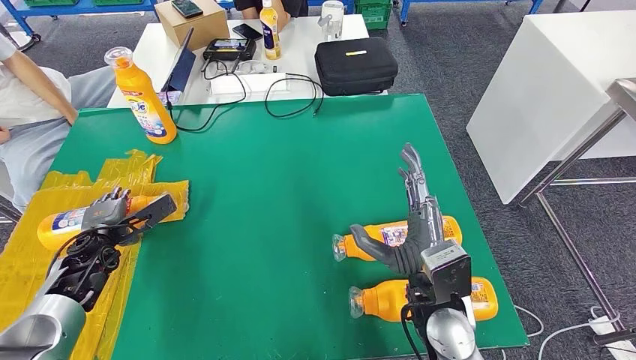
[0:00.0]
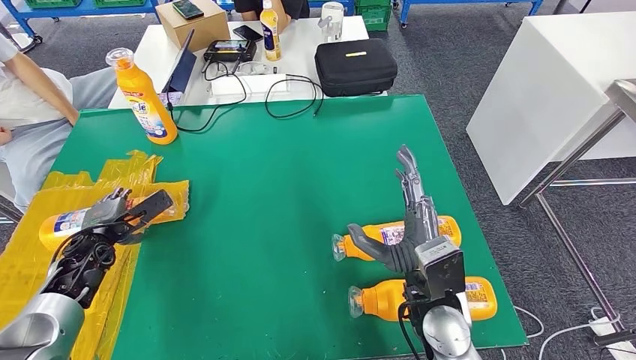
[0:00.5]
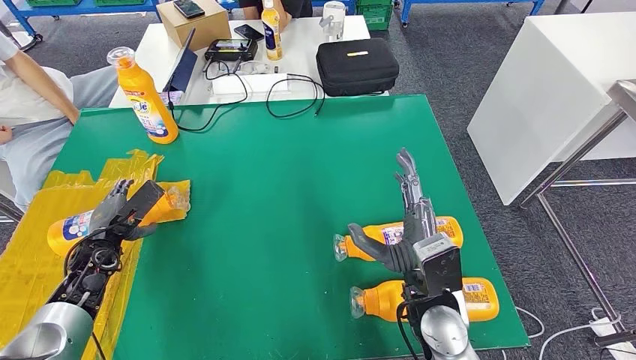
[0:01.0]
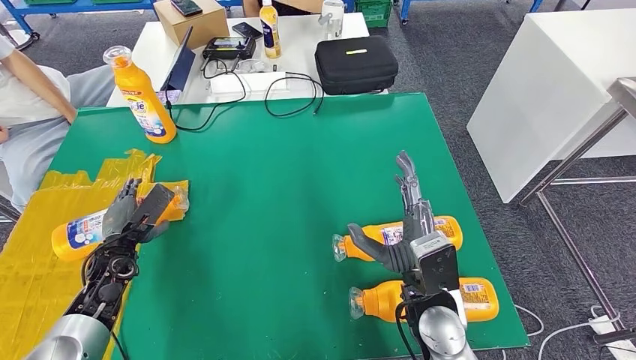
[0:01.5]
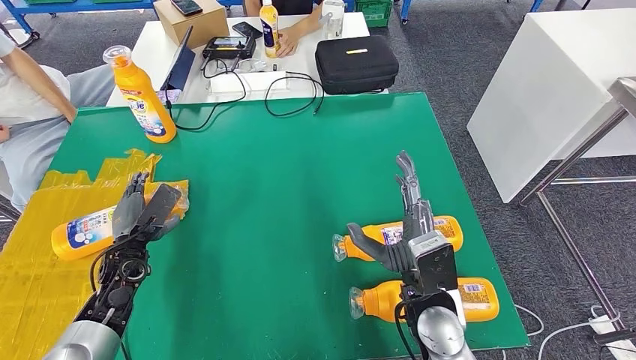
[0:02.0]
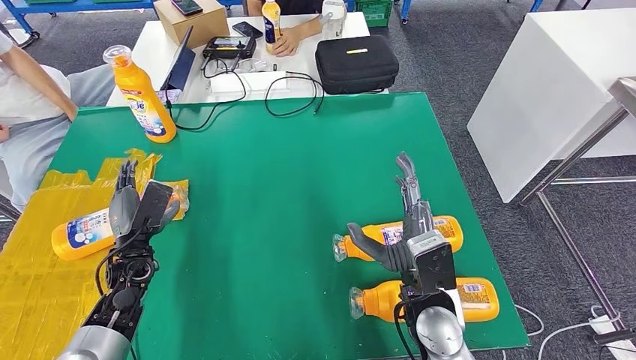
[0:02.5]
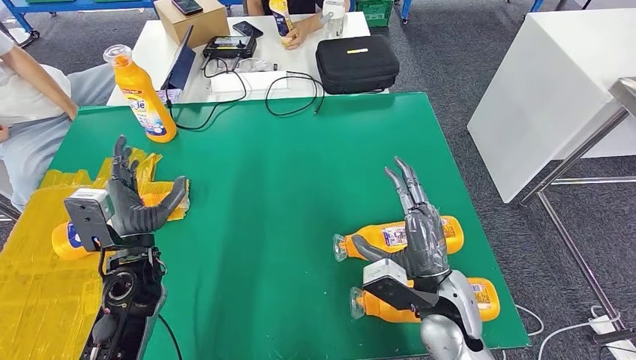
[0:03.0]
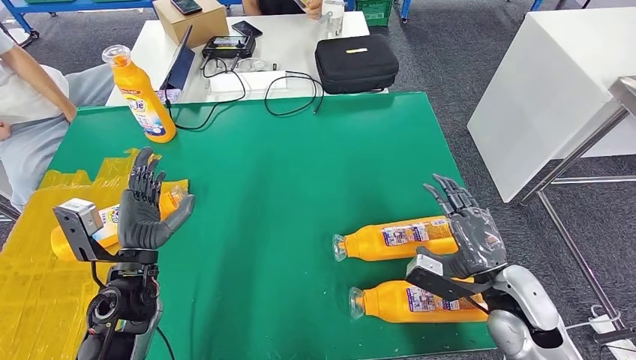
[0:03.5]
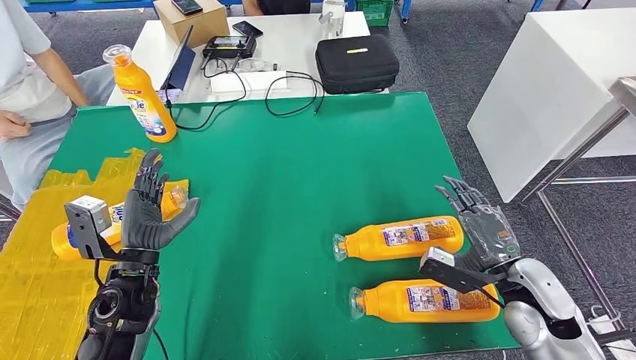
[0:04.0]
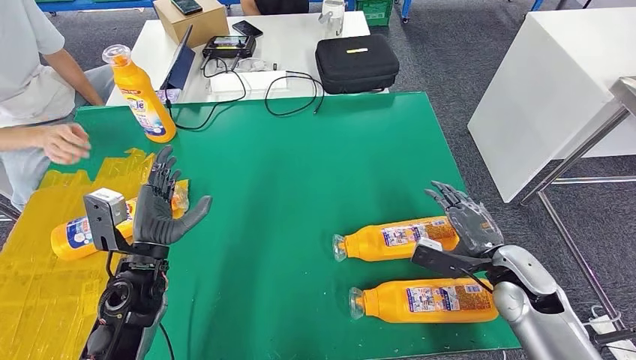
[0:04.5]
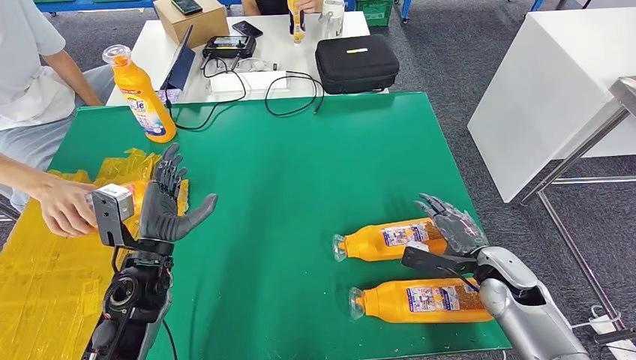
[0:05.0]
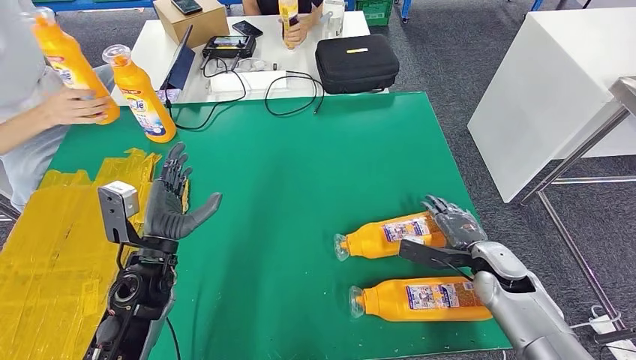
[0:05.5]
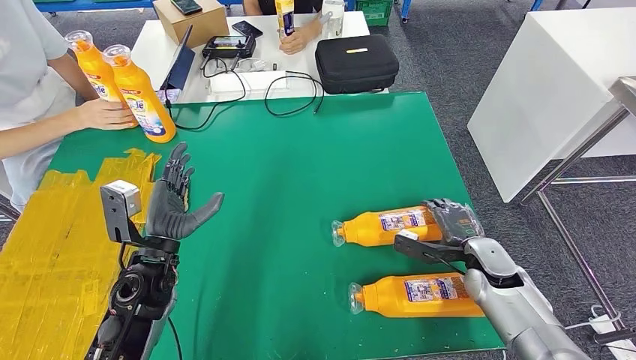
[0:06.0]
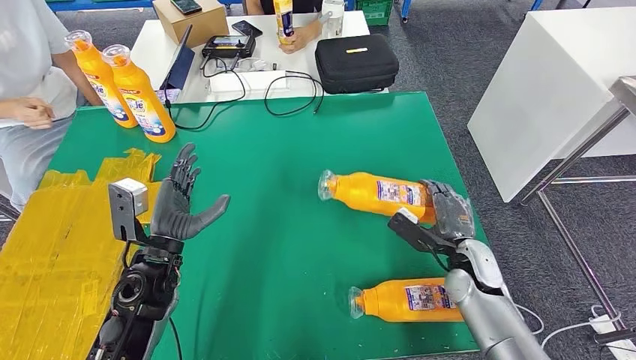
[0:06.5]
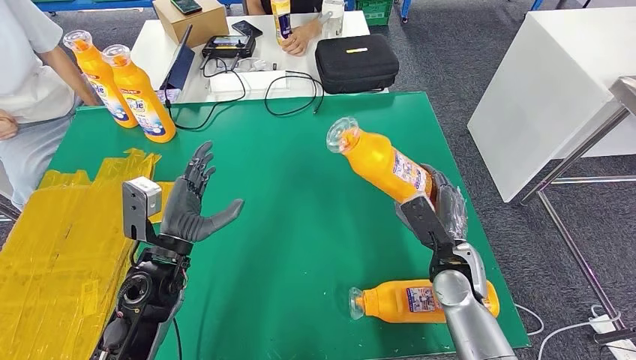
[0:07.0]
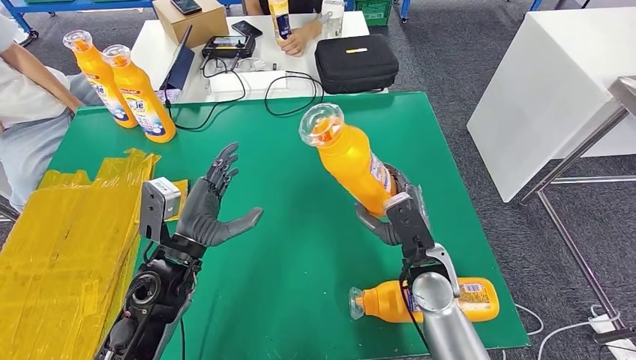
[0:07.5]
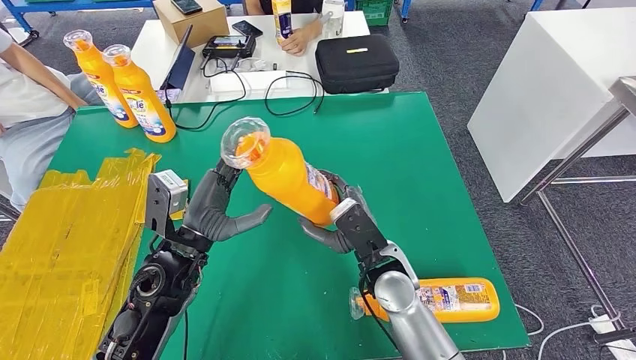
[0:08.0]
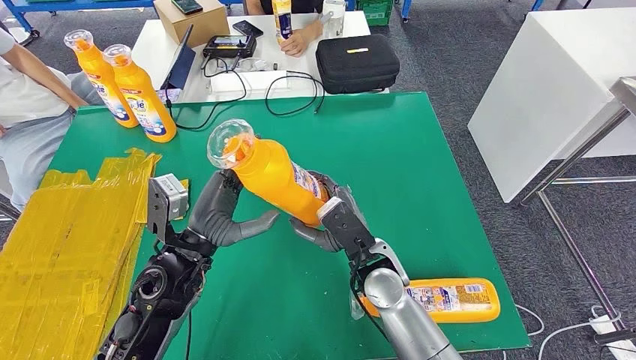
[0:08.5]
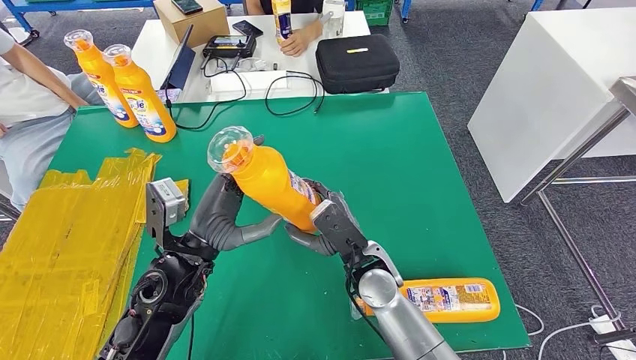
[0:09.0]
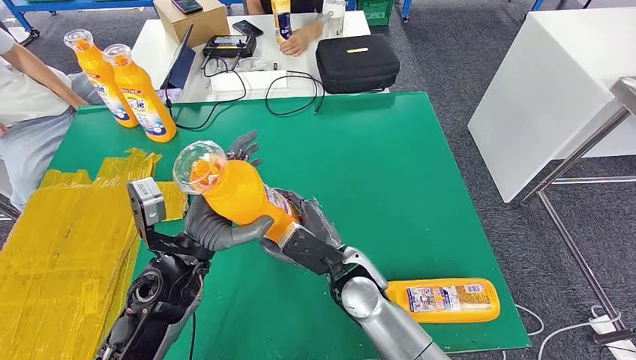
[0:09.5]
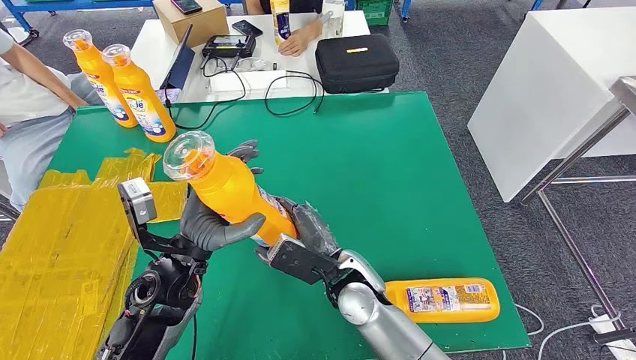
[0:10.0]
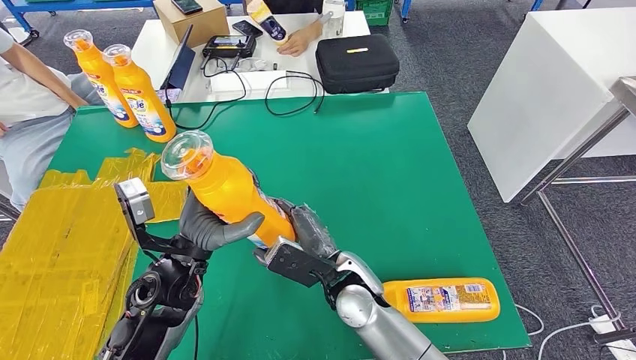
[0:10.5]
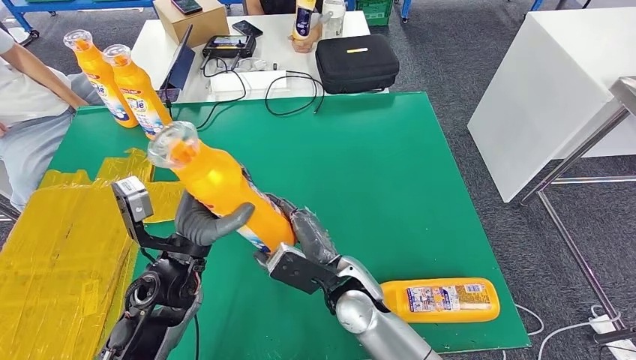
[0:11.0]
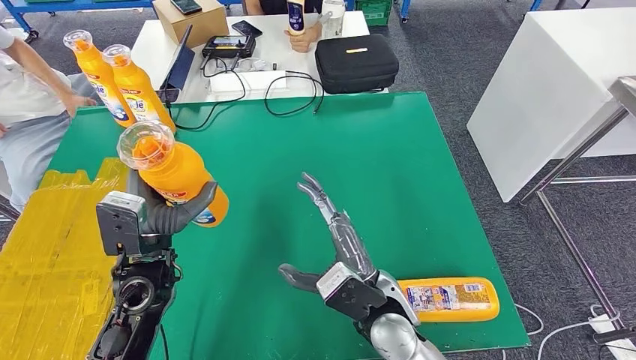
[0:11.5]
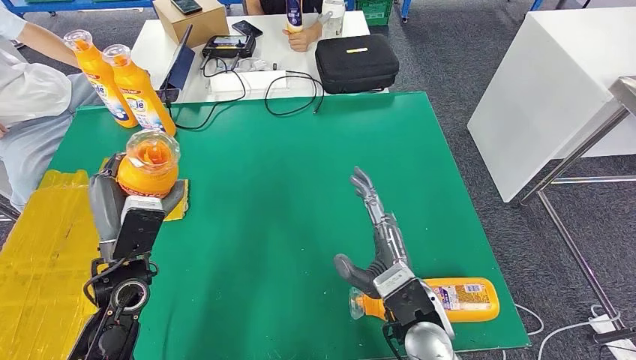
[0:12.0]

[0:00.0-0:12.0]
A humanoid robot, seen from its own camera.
Step, 0:06.5 to 0:09.0: Pick up the fast-moving consumer goods bottle from the table.
0:00.0 to 0:02.0: The left hand heads to the right, covering approximately 5 cm.
0:02.0 to 0:04.0: The left hand shifts approximately 10 cm upward and to the right, while the right hand travels to the right by about 20 cm.
0:04.0 to 0:06.0: The right hand travels downward and forward by some 10 cm.
0:08.0 to 0:10.0: The right hand moves to the left, about 5 cm.
0:10.0 to 0:12.0: The left hand moves to the left, roughly 10 cm; the right hand heads to the right and backward, covering about 10 cm.

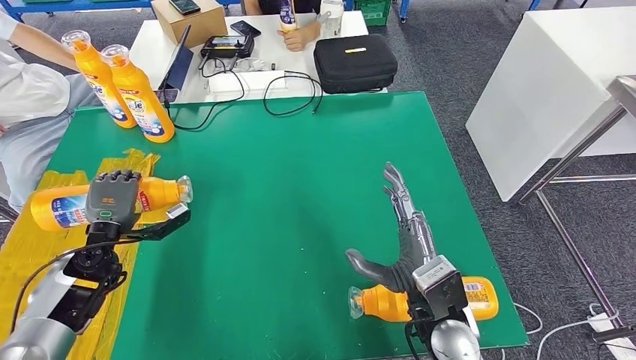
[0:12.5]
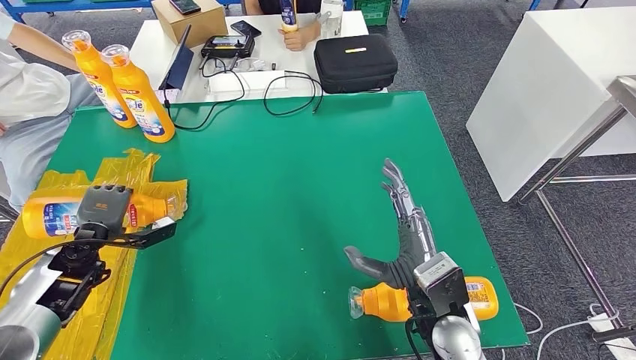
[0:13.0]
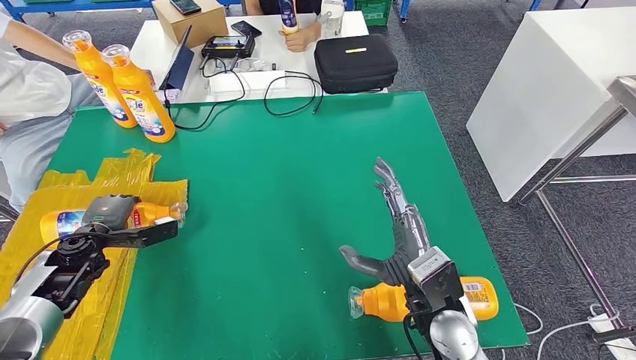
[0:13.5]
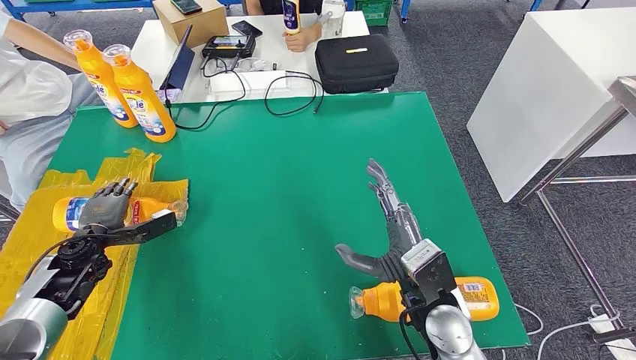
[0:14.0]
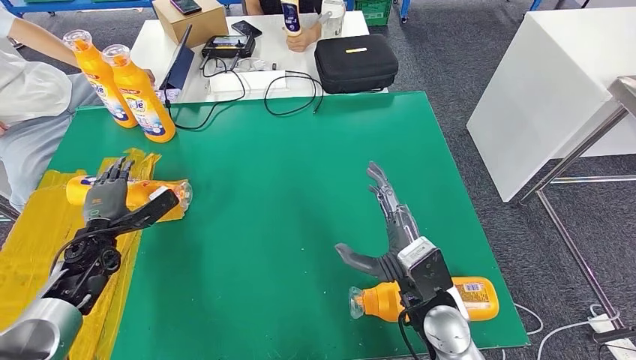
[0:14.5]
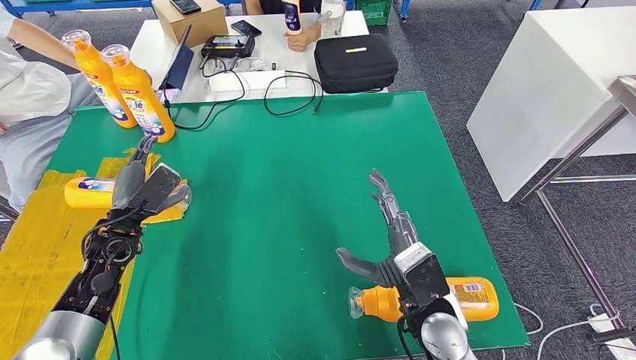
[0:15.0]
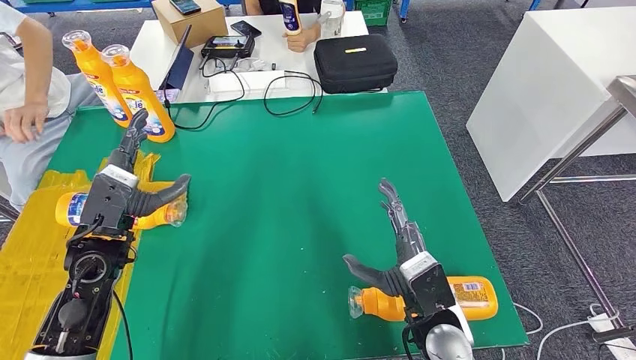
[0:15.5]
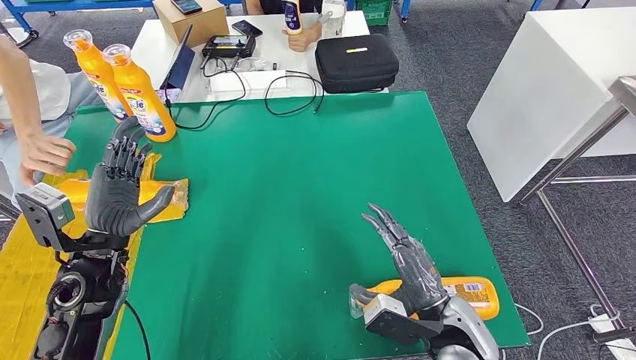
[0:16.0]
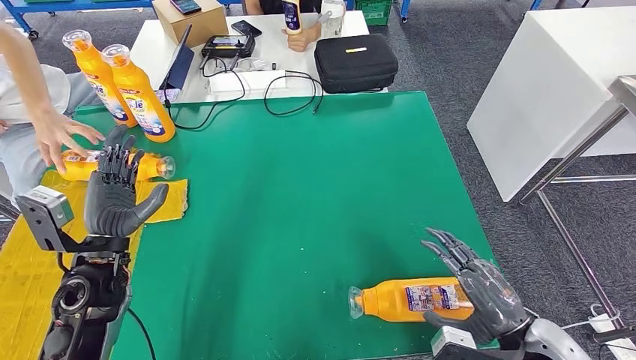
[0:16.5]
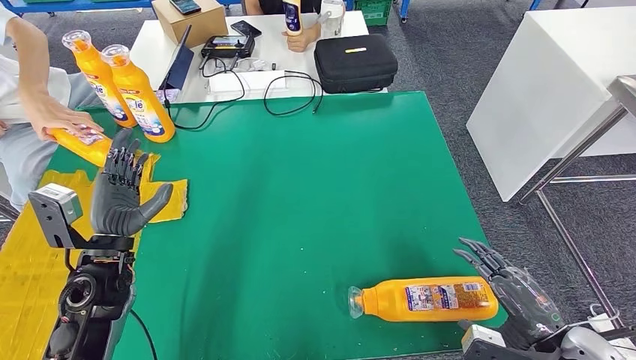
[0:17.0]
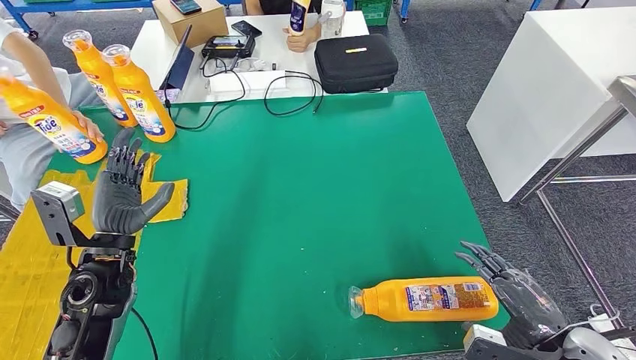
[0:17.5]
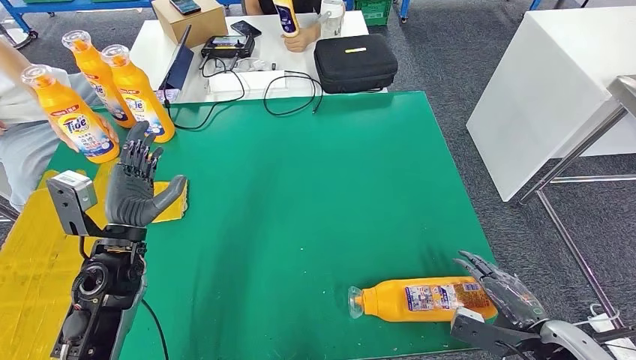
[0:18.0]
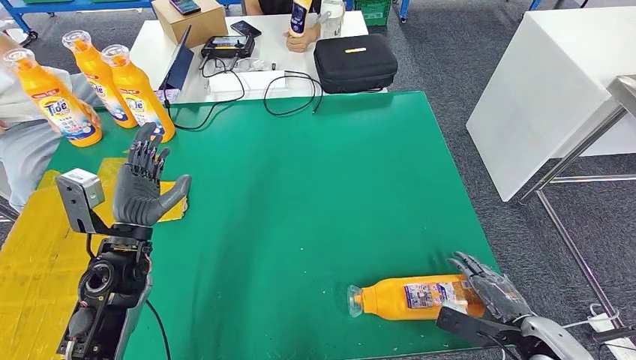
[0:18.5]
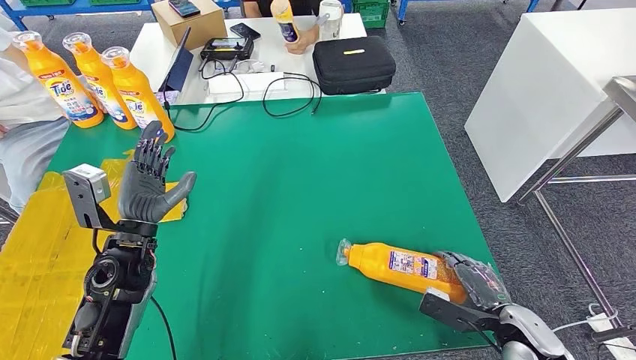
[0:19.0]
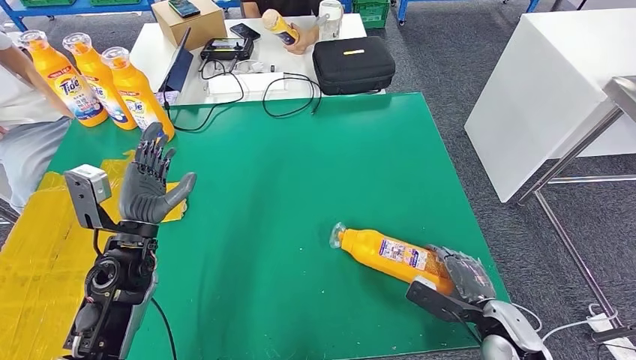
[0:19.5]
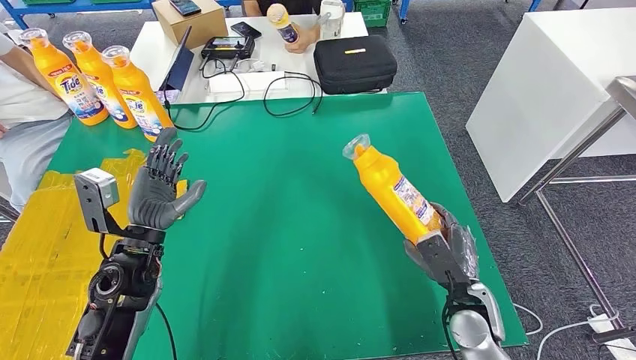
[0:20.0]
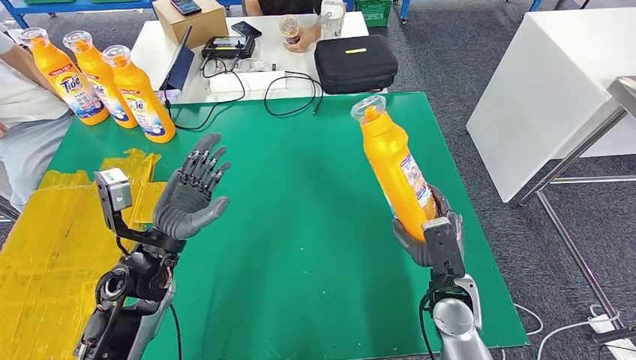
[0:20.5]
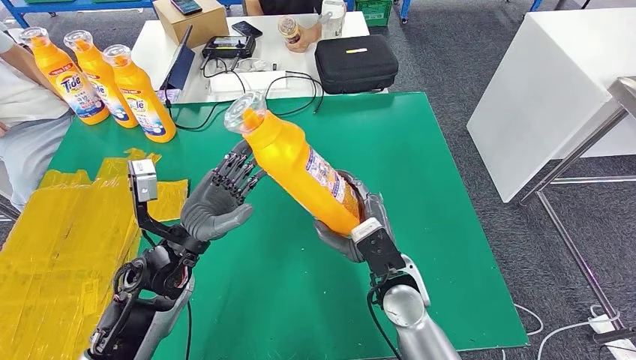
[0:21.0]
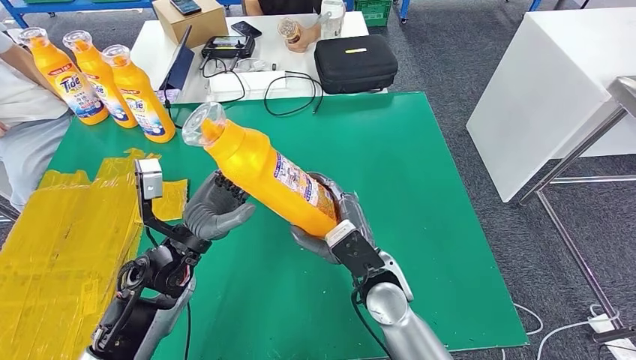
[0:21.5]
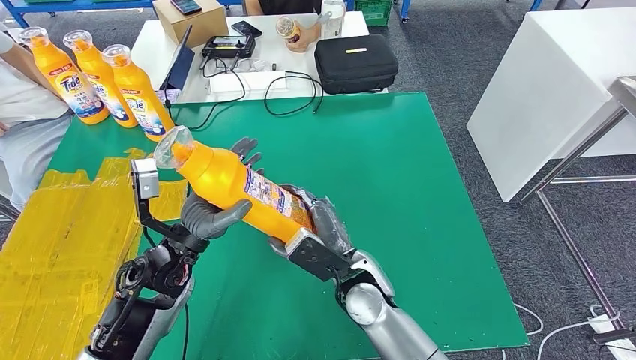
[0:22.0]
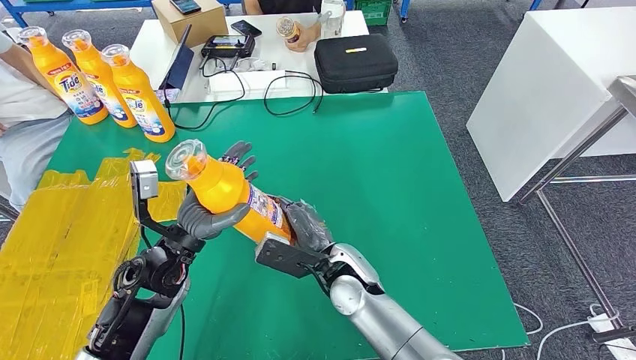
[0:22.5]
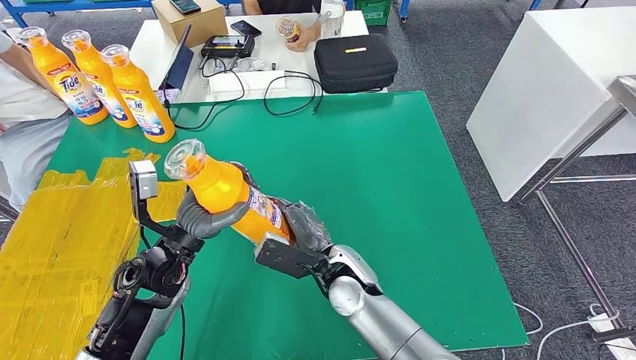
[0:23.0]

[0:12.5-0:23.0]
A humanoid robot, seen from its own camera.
Step, 0:12.5 to 0:14.5: Flip the fast-moving consumer goods bottle to the front side.
Step, 0:19.0 to 0:21.5: Pick up the fast-moving consumer goods bottle from the table.
0:14.5 to 0:16.5: The right hand is displaced to the right and backward by approximately 20 cm. Meanwhile the left hand shifts roughly 15 cm to the right, upward and backward.
0:21.0 to 0:23.0: The right hand heads to the left, covering about 10 cm.
